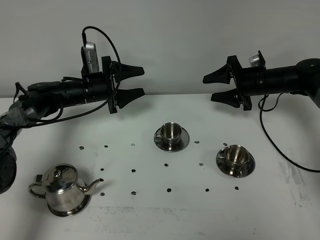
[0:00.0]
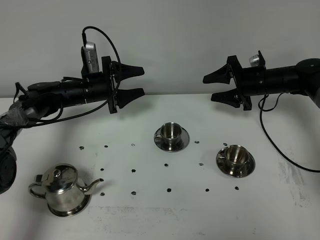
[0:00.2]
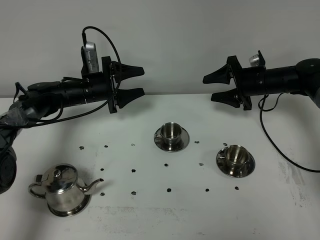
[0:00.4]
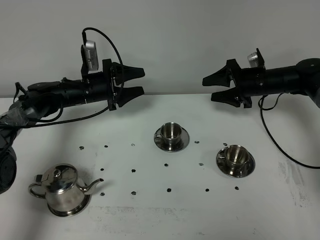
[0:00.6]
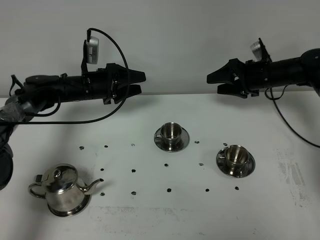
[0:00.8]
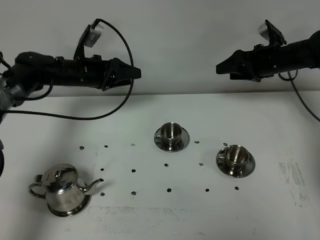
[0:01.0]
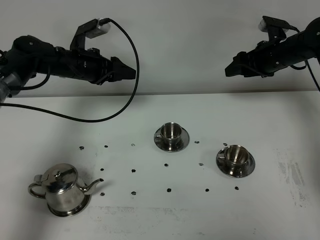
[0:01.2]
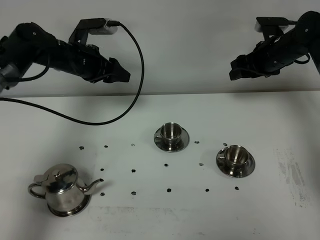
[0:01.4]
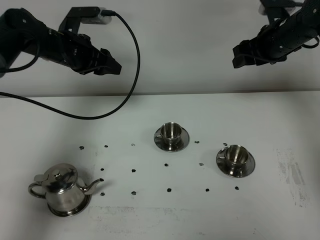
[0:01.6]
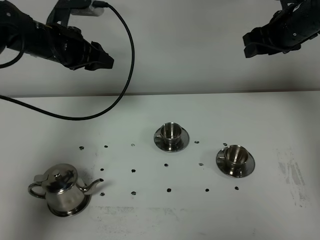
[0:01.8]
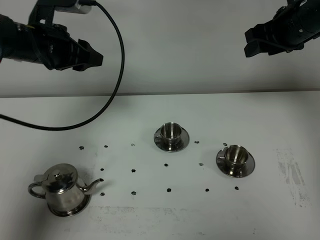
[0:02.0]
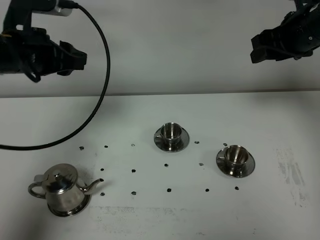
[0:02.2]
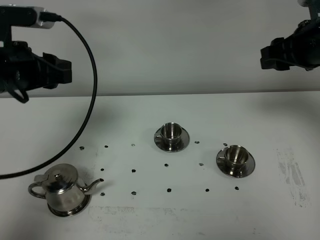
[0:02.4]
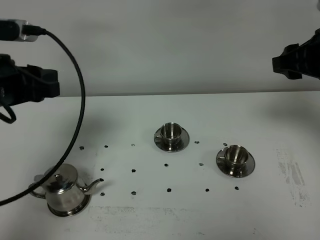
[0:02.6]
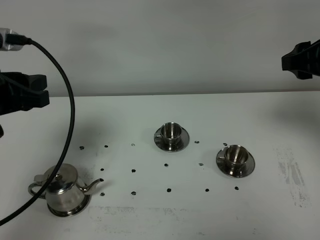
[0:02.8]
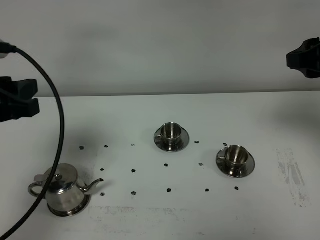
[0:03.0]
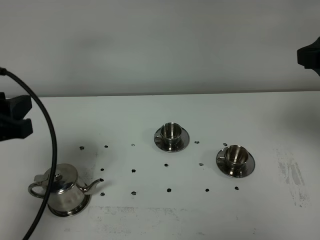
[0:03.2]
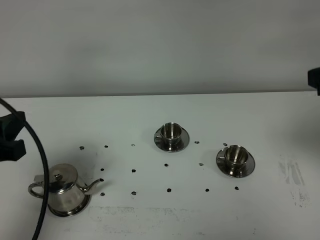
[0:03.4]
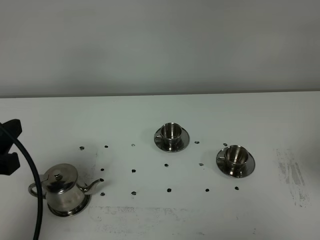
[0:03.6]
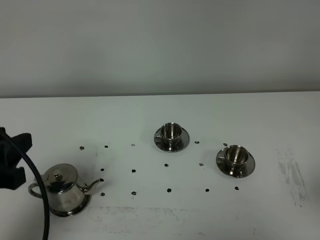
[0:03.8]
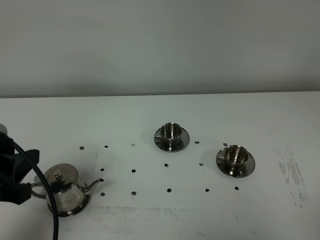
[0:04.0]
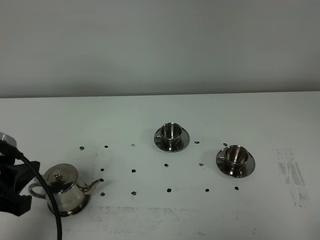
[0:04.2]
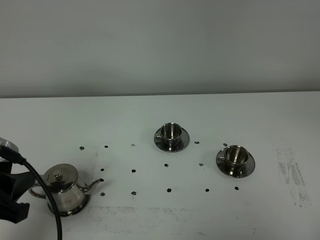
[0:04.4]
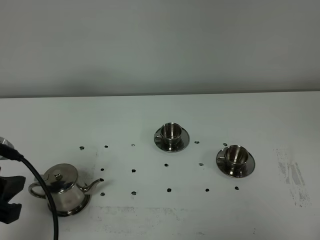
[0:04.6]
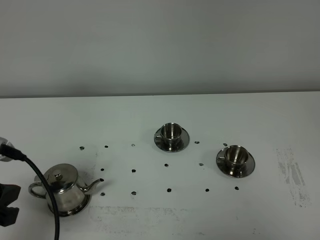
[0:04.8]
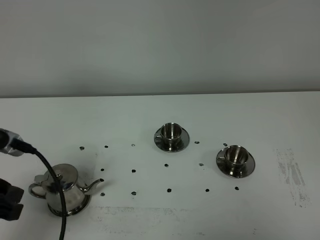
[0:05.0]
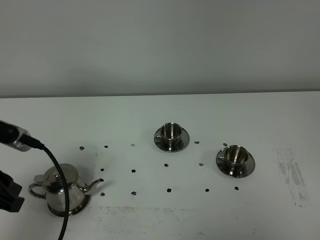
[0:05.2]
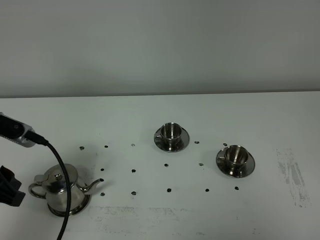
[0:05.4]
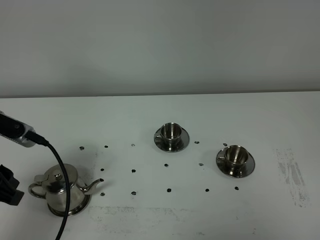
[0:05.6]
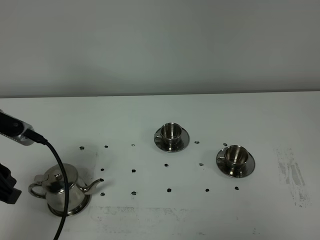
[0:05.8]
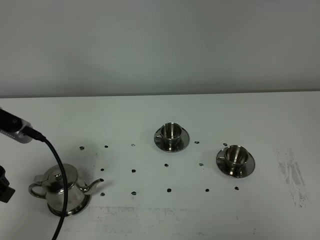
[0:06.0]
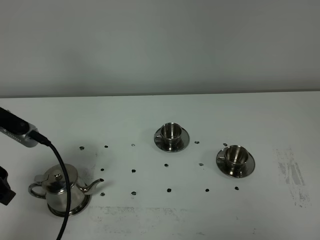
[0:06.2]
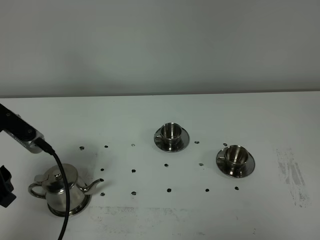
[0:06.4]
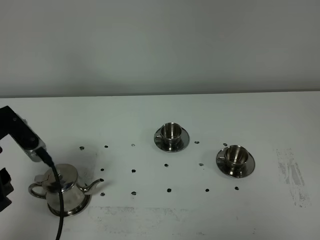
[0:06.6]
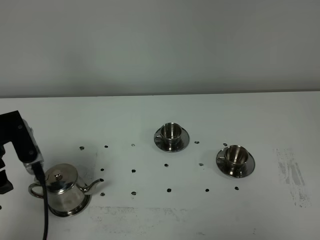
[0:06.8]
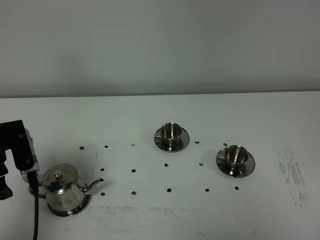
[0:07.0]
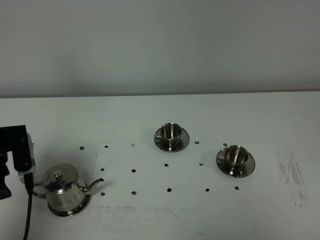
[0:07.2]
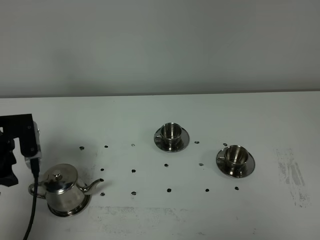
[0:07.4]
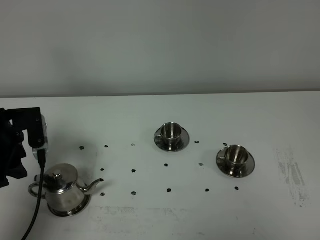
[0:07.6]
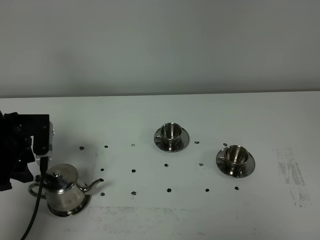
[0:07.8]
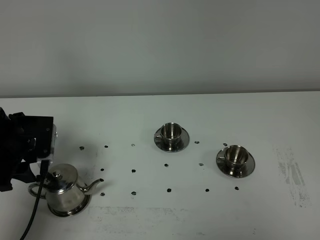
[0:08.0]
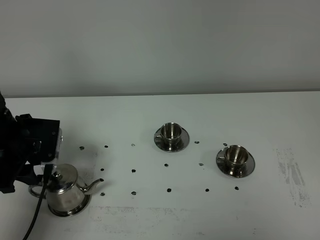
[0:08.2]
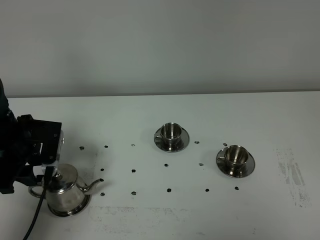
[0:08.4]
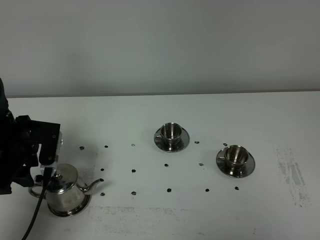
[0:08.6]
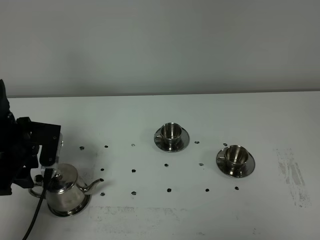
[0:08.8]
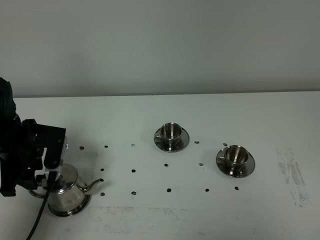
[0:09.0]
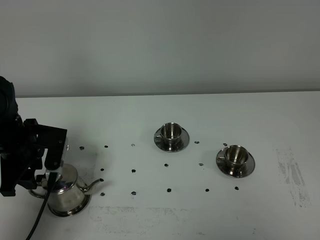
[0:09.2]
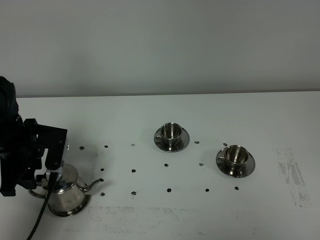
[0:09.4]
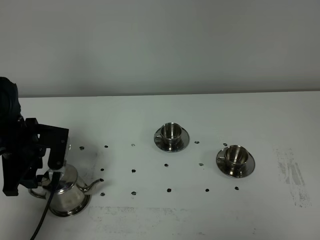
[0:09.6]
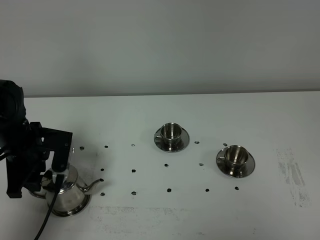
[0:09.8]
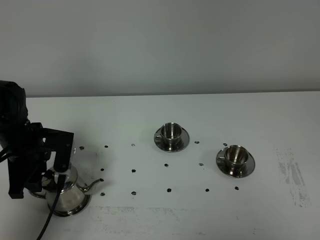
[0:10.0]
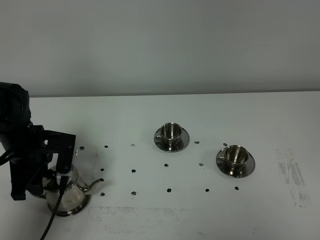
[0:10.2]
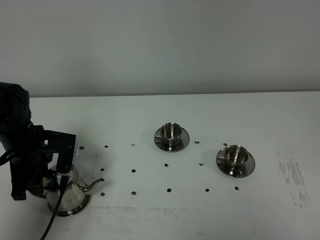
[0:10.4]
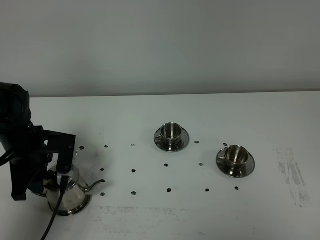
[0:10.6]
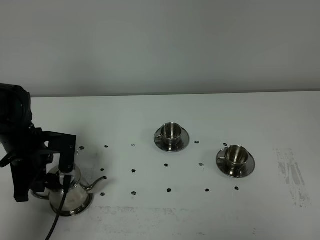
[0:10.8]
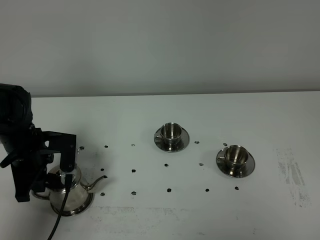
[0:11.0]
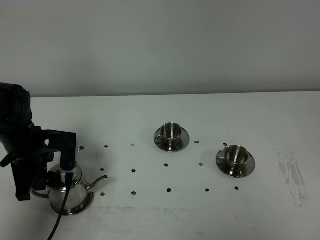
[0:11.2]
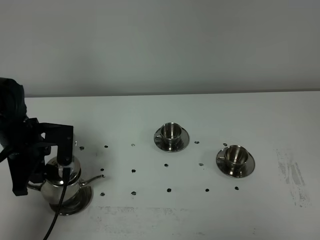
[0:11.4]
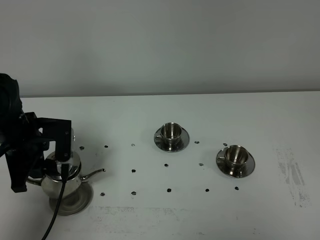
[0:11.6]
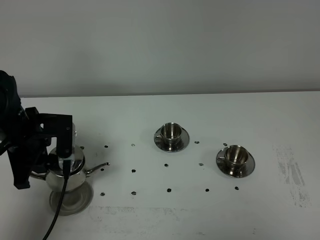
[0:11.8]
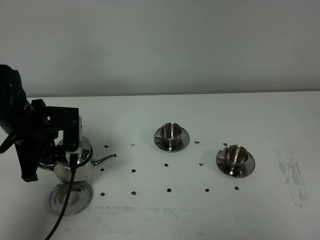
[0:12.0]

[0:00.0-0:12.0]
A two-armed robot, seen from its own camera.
Task of the whole recording: grasp the stainless steel teapot and pour the tea into the two stainless steel teacups one by one, put the stainless steel teapot back in its original place.
Step, 0:00.0 to 0:11.6: Pick up the teapot with the left gripper.
0:00.0 to 0:01.6: The two grippers go some 15 cm upward.
0:01.6 to 0:03.0: The right gripper is displaced backward and upward by approximately 25 cm. Meanwhile the left gripper goes roughly 25 cm backward.
0:03.0 to 0:04.4: The left gripper is displaced backward by approximately 10 cm. The right gripper goes some 30 cm backward, and closes.
0:04.4 to 0:06.0: The left gripper heads forward, covering some 5 cm.
0:06.0 to 0:07.6: The left gripper travels forward and downward by some 15 cm.
0:07.6 to 0:09.0: There are only small adjustments of the grippers.
0:09.0 to 0:10.4: The grippers make only small movements.
0:10.4 to 0:12.0: The left gripper is displaced upward by some 5 cm, and closes.

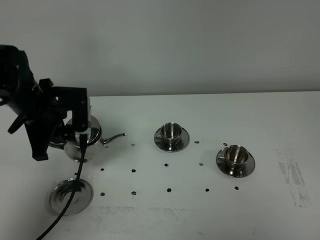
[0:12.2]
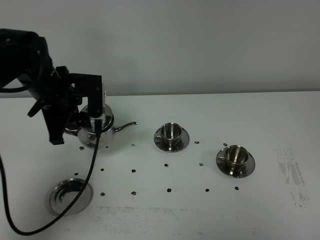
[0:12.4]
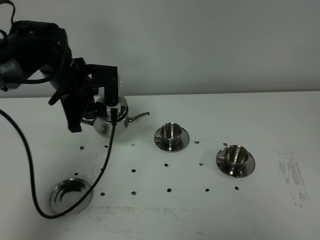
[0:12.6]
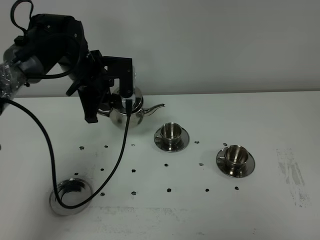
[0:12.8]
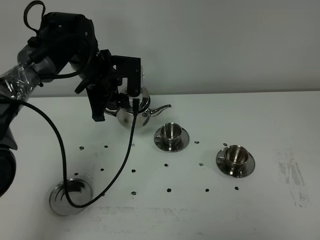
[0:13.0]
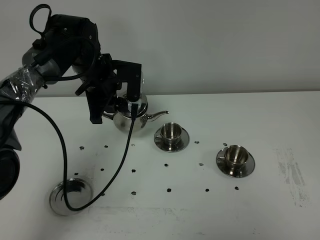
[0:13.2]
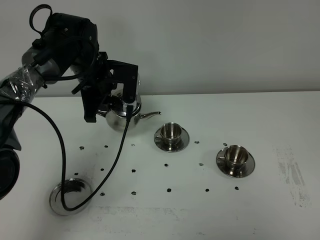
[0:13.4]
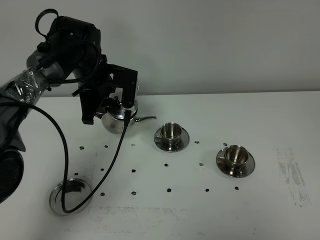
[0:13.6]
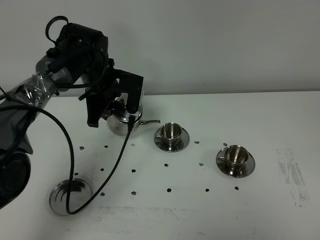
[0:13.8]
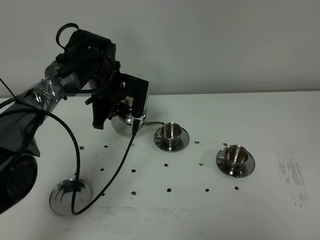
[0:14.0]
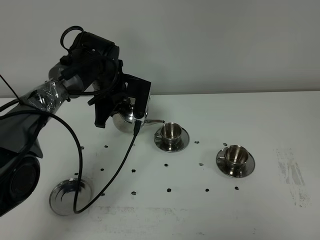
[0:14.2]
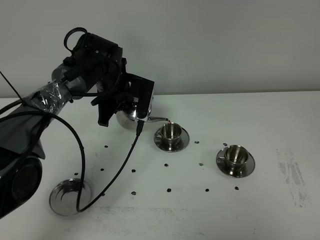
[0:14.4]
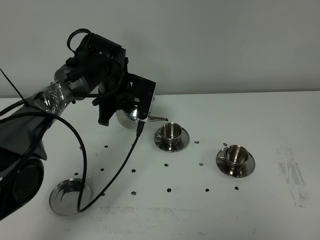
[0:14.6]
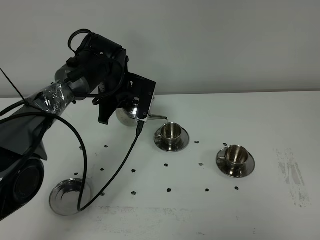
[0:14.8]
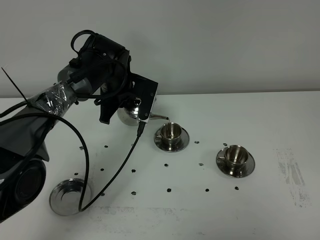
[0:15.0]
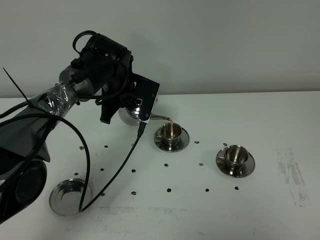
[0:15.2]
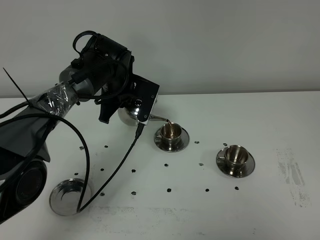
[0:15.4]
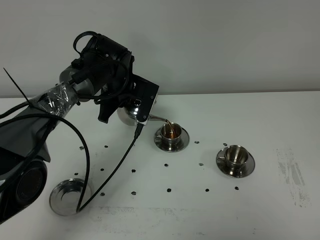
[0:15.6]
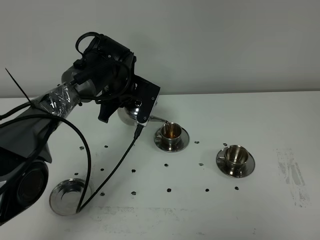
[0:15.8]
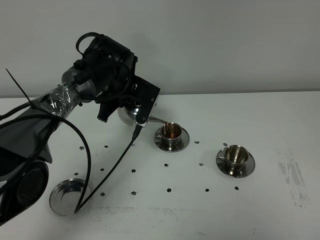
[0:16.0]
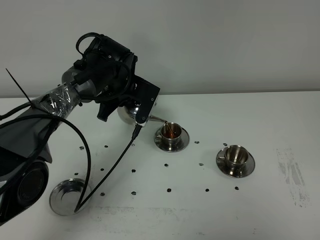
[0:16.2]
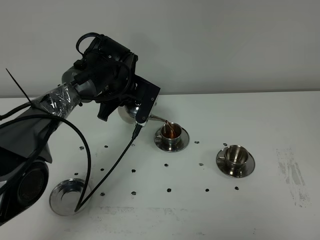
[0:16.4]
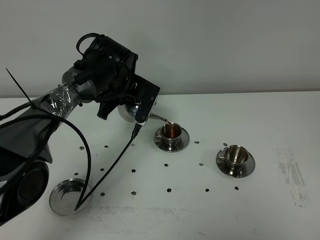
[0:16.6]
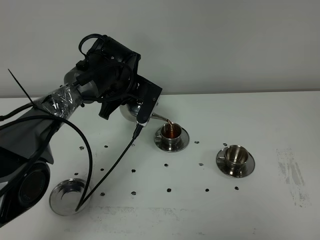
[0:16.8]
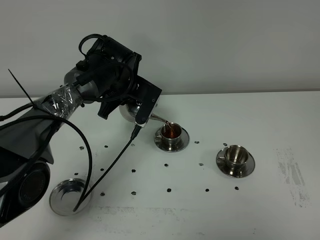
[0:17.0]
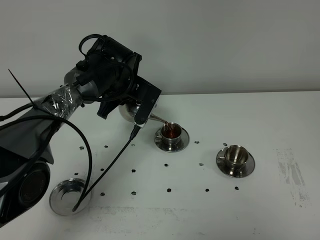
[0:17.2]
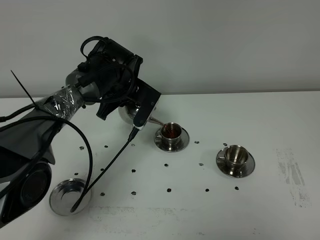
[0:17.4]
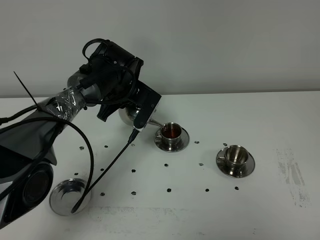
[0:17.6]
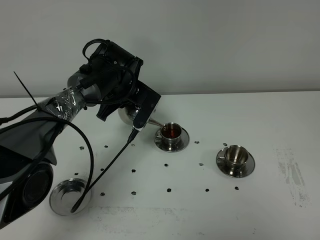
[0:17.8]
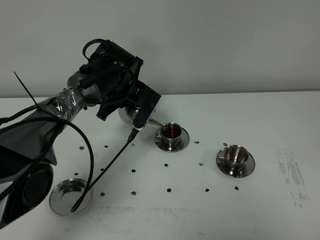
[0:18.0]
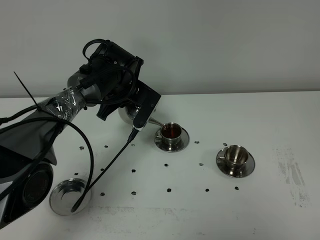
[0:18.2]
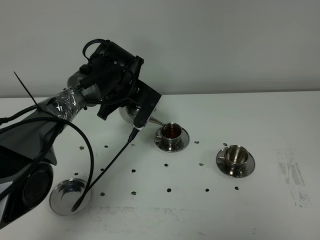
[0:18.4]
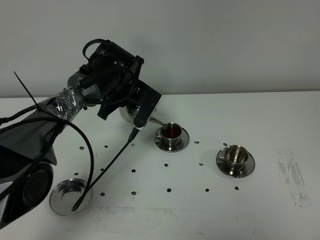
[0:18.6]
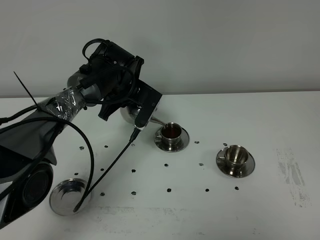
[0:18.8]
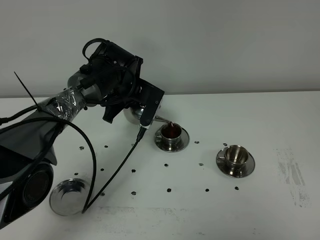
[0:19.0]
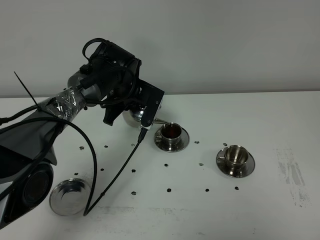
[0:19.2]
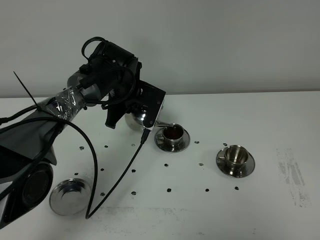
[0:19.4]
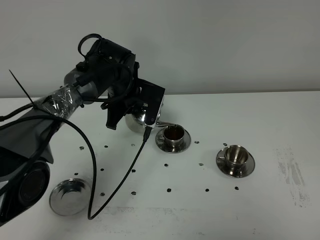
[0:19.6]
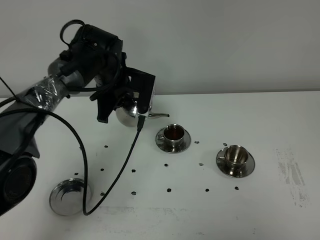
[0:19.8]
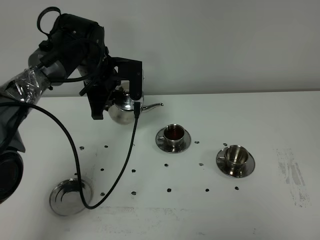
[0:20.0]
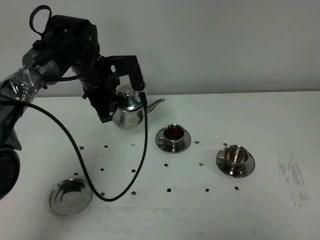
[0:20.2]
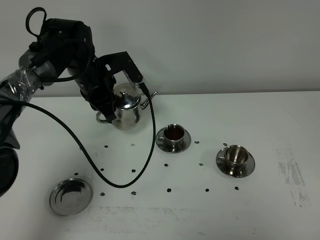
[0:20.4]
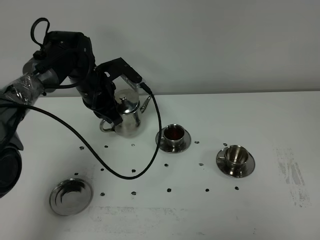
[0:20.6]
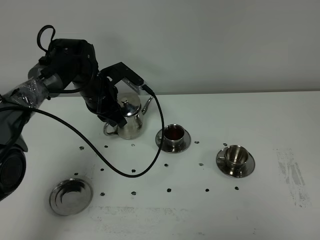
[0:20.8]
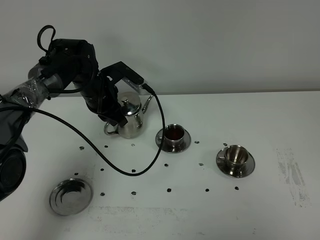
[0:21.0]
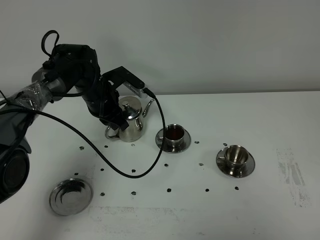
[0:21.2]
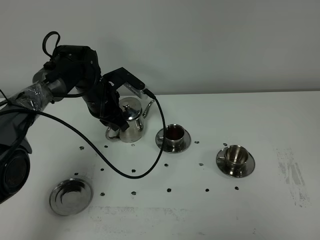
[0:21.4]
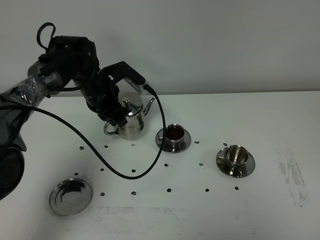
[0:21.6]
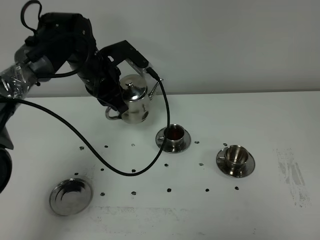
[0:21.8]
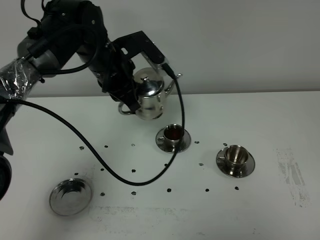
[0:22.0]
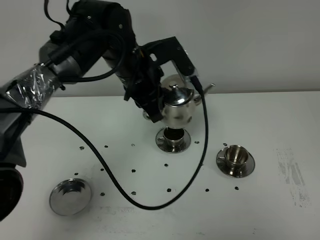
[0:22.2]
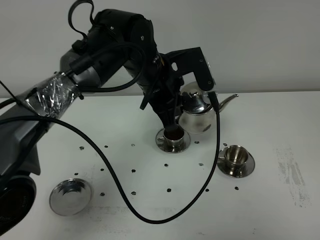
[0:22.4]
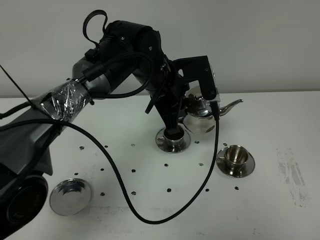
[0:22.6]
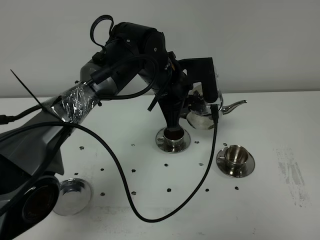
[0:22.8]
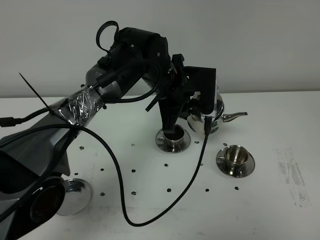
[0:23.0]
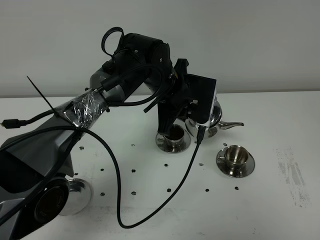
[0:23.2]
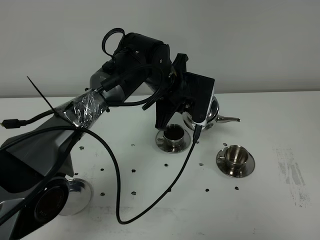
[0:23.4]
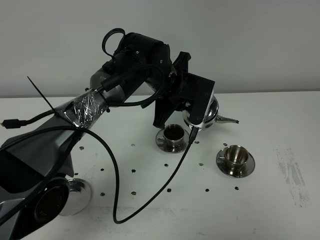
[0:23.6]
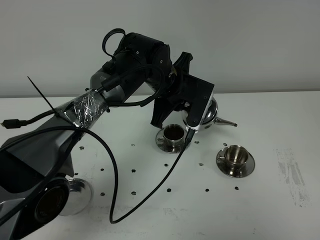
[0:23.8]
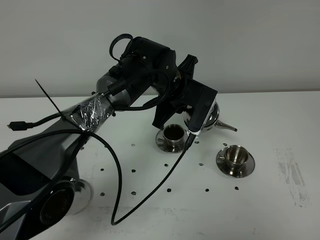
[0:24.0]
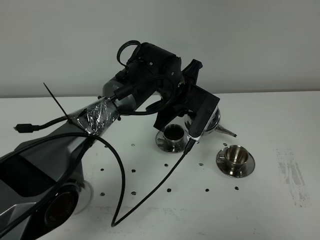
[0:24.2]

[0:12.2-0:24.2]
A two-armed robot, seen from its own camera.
Task of the whole recording: grasp the stainless steel teapot and pour the tea into the two stainless steel teacups one by one, put the stainless steel teapot back in its original place.
0:12.2 to 0:13.8: The left gripper moves forward and to the right, about 15 cm.
0:13.8 to 0:15.2: The grippers stay close to where they were, moving slightly.
0:15.2 to 0:18.2: There are only small adjustments of the grippers.
0:19.8 to 0:21.2: The left gripper travels downward by about 5 cm.
0:21.2 to 0:22.6: The left gripper shifts some 20 cm to the right, upward and backward.
0:22.6 to 0:24.2: The left gripper changes place by about 5 cm.
